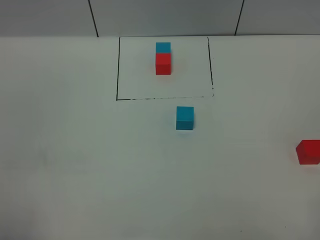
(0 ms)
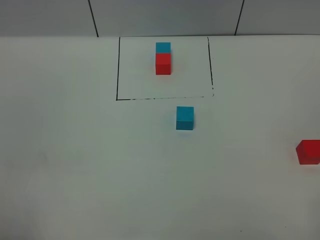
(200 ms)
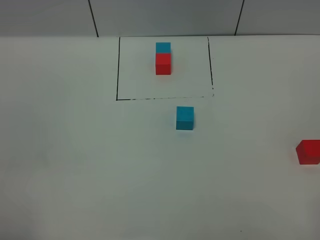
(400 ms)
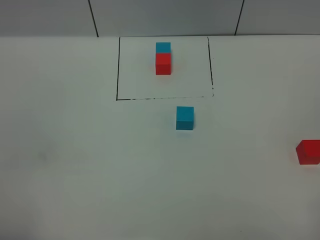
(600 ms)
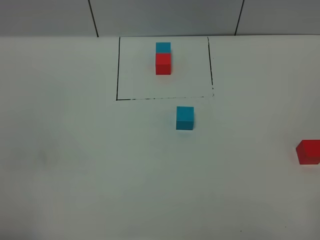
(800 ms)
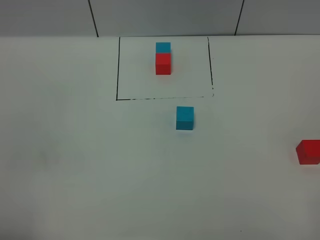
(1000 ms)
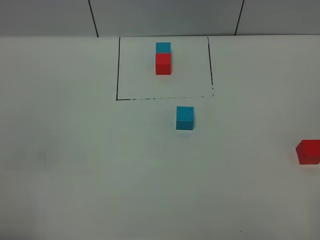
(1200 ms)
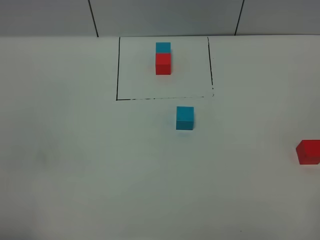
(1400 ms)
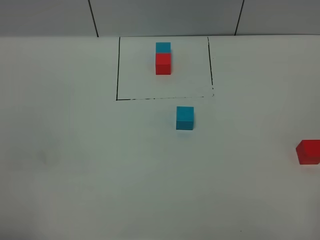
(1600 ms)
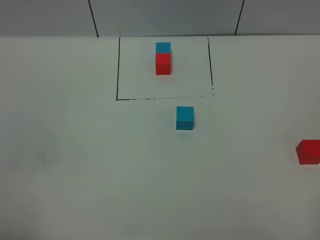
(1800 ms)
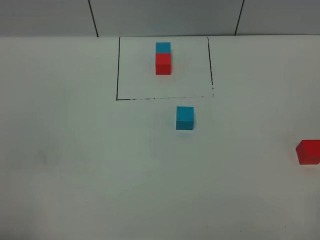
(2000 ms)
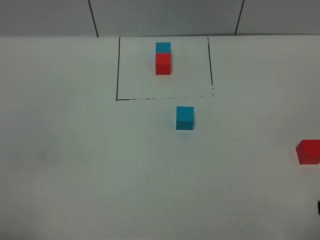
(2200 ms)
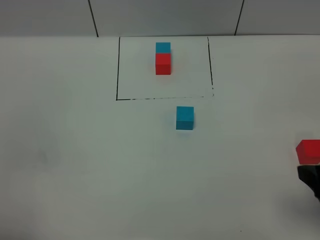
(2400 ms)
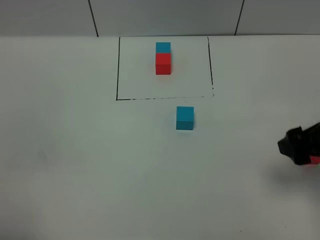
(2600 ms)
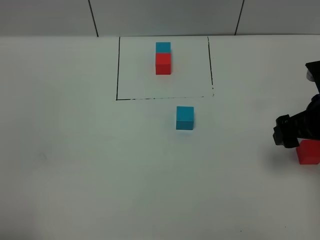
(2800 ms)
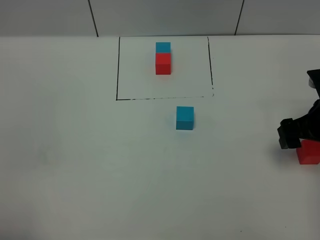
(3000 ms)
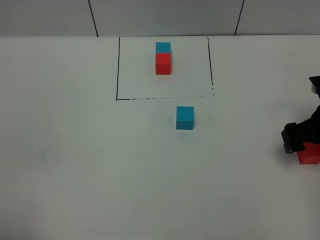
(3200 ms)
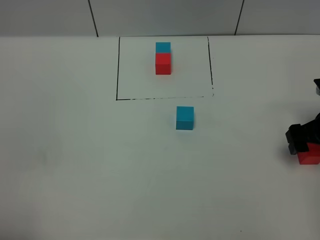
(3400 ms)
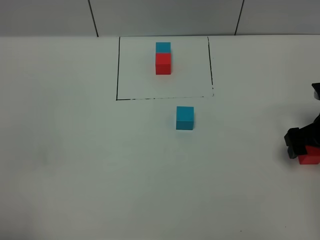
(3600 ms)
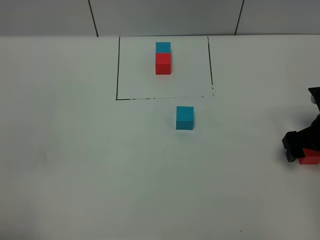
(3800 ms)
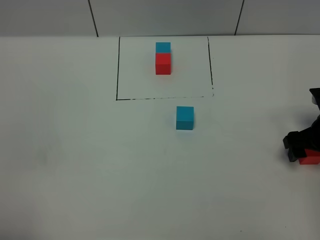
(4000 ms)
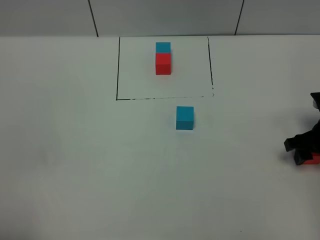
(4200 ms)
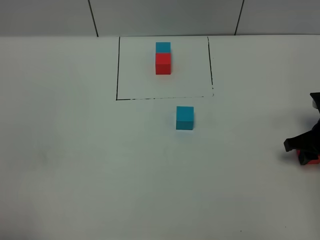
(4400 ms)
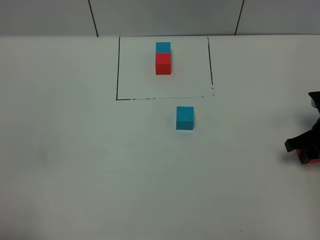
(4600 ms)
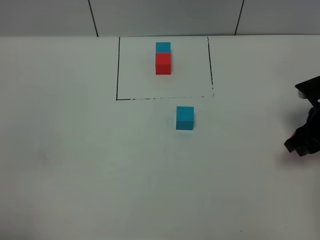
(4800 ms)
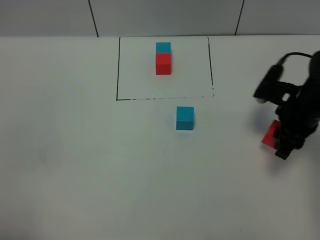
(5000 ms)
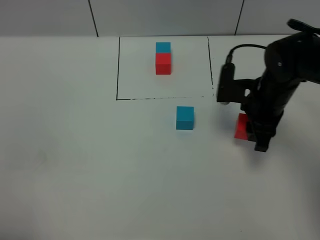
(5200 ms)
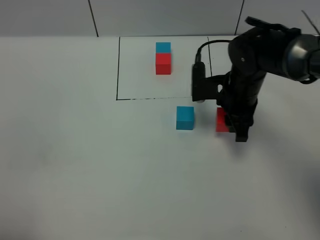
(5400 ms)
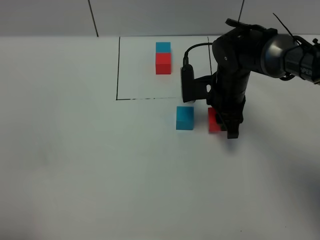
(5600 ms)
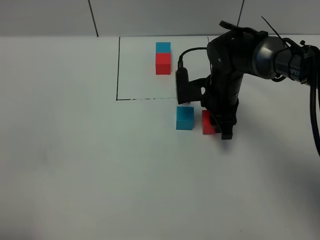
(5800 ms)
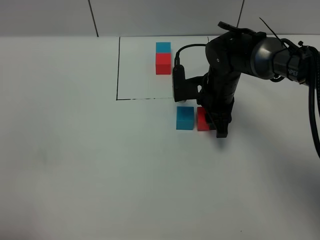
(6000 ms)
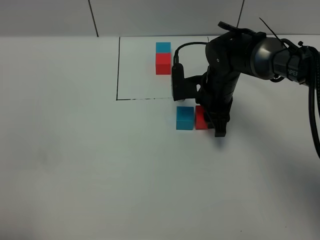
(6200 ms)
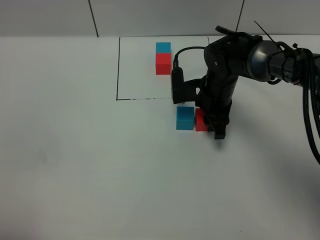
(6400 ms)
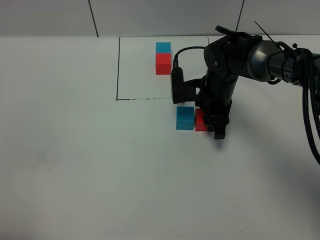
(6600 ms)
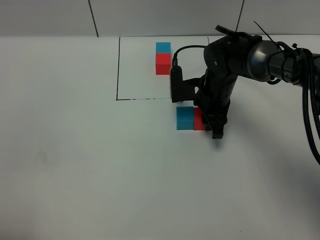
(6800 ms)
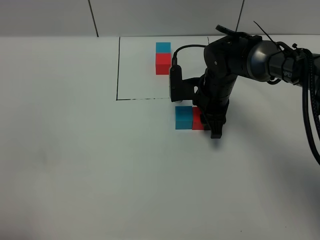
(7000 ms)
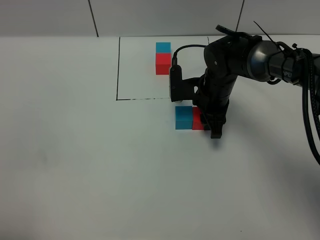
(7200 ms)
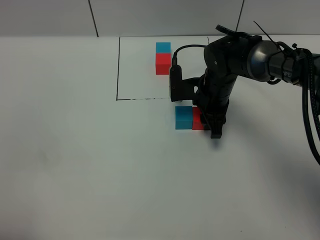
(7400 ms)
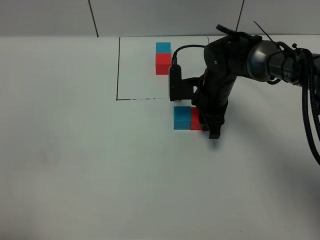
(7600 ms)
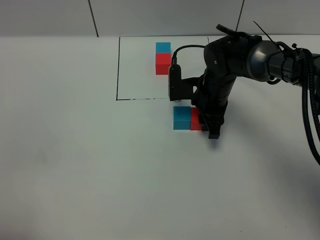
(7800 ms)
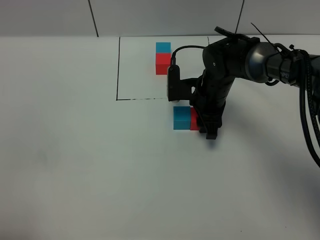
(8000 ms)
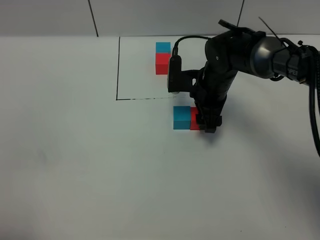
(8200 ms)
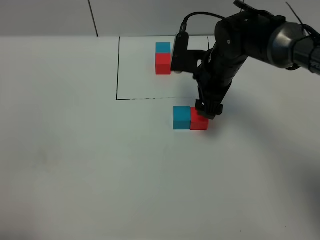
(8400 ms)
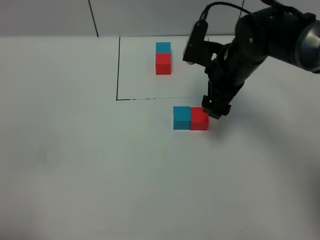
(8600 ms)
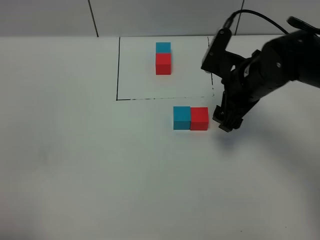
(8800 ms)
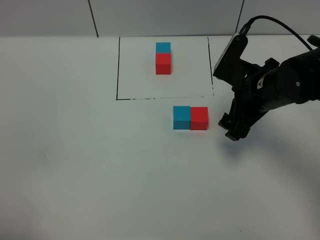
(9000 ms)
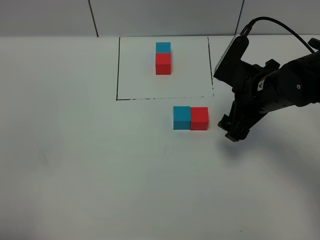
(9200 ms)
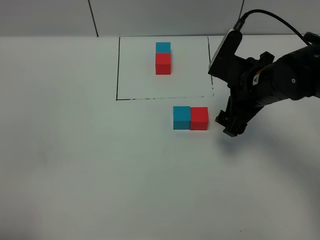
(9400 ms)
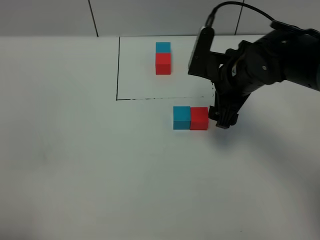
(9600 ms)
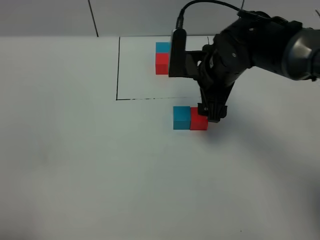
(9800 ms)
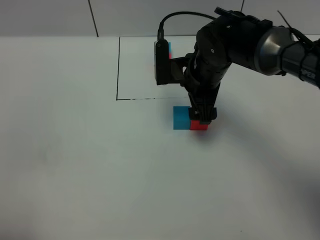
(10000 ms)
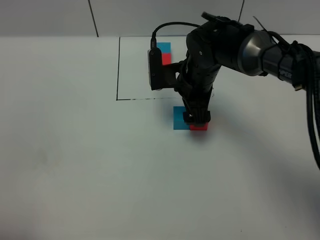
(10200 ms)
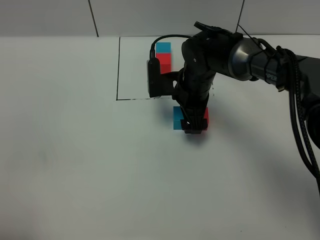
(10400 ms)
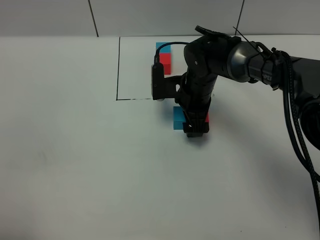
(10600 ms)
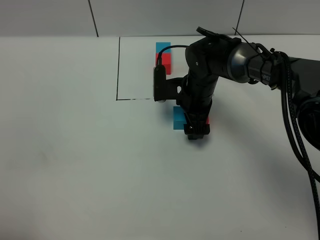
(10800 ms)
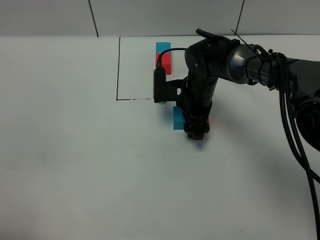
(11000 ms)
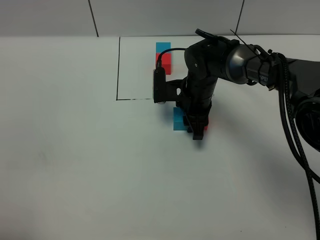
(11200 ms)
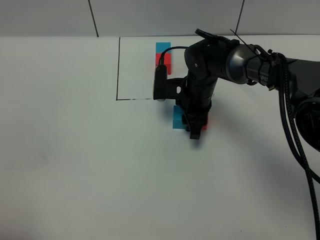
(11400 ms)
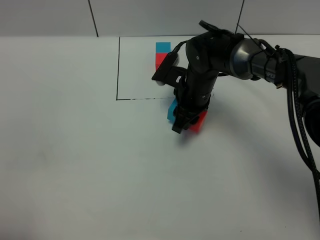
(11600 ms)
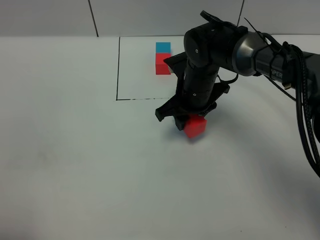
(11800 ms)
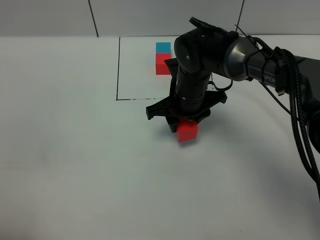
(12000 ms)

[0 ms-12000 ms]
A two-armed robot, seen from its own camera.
Task of the whole recording: According to the building block template in front, assemble the scattered blocks together.
Step, 0 ms to 8200 ms: Put the red cube on the right of the blue cube.
1600 ms to 3000 ms: The right gripper shifts about 30 cm forward.
3000 ms to 4400 ms: The right gripper is displaced downward by roughly 5 cm, and closes its fingers.
4400 ms to 6000 ms: The right gripper goes approximately 25 cm to the left and forward.
6000 ms to 7600 ms: Both grippers stay put.
7600 ms to 9000 ms: The right gripper moves backward, upward and to the right, roughly 15 cm, and opens its fingers.
9000 ms to 10400 ms: The right gripper is displaced forward, to the left and downward by some 15 cm.
10400 ms to 12000 ms: The right gripper closes.

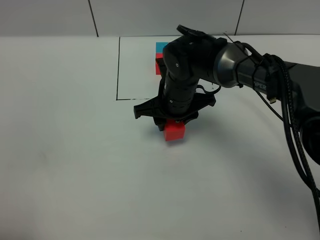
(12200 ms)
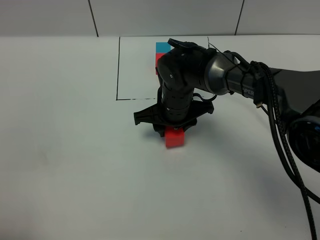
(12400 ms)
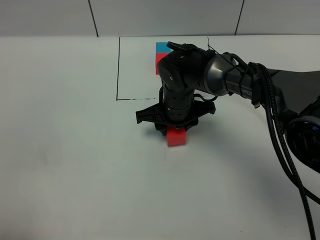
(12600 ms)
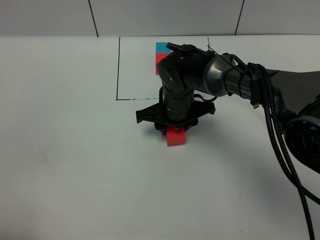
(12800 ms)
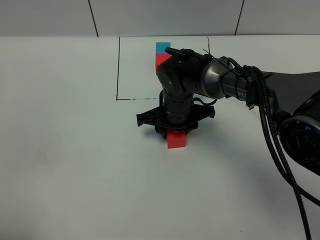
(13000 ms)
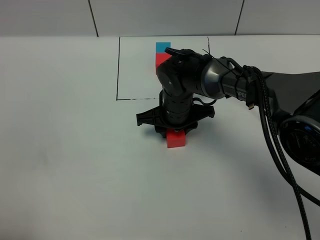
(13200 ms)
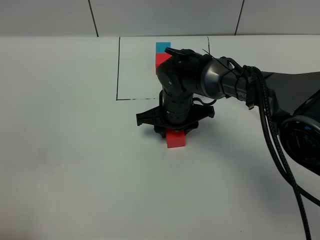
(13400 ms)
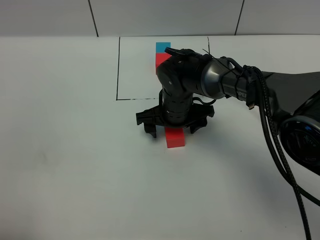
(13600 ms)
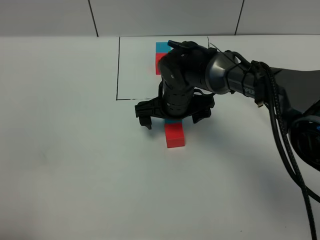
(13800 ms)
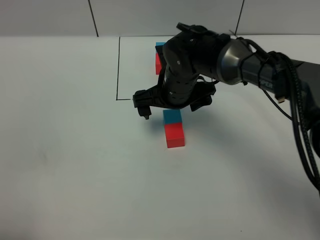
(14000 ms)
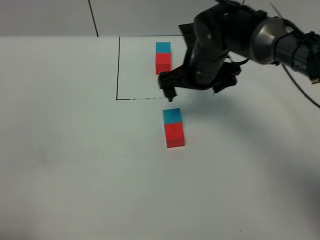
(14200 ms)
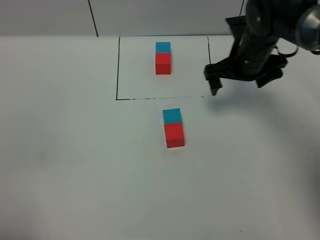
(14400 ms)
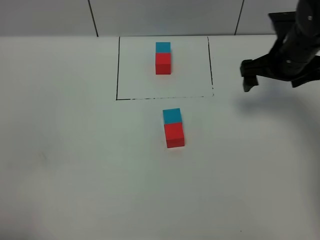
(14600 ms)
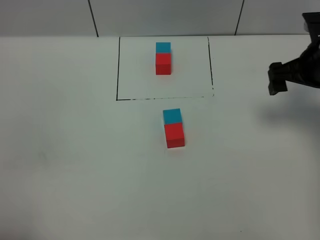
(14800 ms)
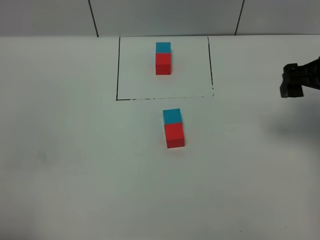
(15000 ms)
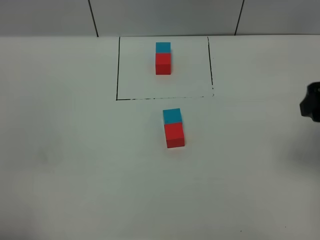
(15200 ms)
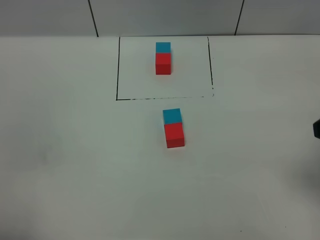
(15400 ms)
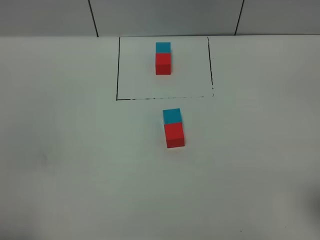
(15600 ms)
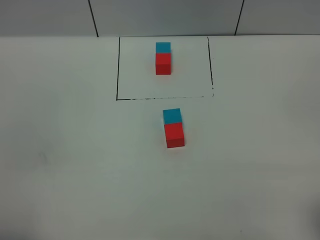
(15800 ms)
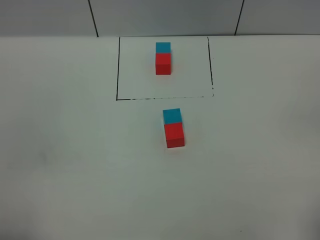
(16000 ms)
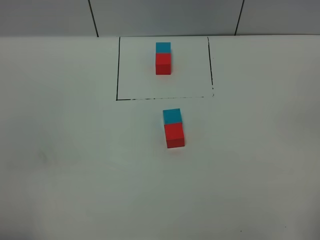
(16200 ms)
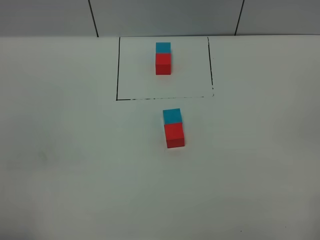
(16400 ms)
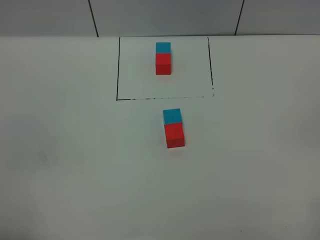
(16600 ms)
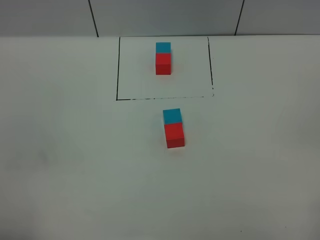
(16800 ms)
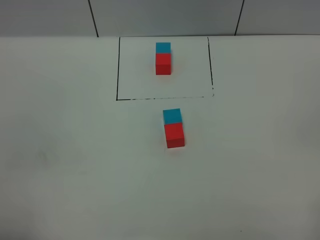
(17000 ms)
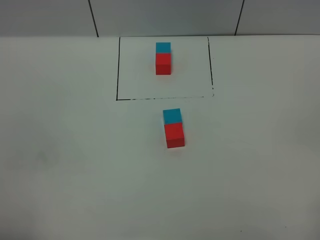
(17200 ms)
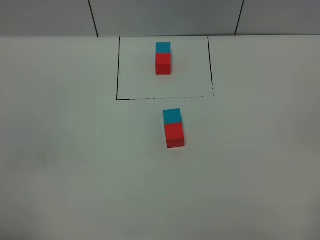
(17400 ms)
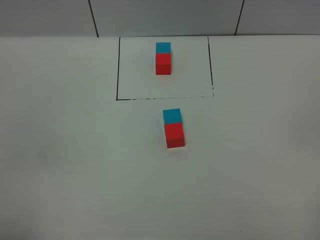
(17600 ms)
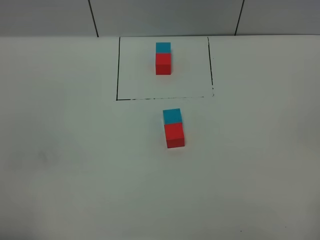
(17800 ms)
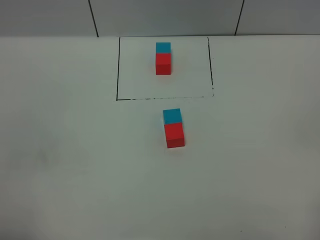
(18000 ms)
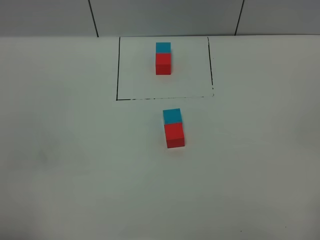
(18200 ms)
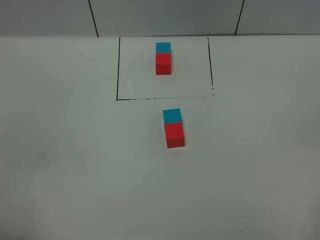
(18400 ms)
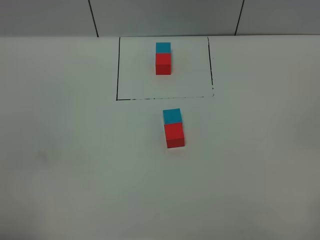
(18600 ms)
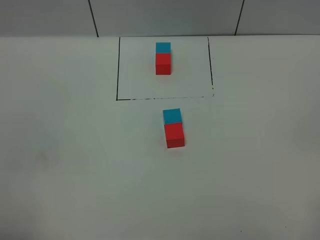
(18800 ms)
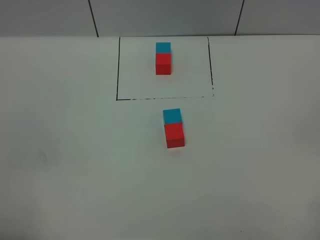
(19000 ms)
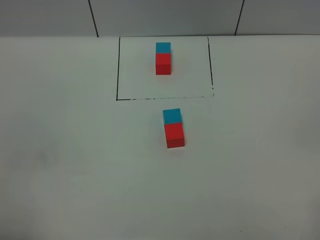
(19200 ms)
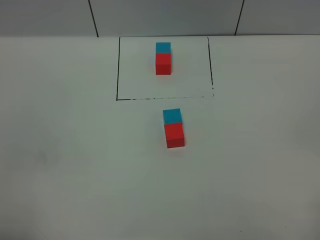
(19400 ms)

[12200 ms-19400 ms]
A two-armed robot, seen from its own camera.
Task of the whole recording: According to the building block template in front, assemble the scattered blocks together.
12200 ms to 13600 ms: The right gripper opens.
13600 ms to 15000 ms: The right gripper moves to the right, upward and backward, some 30 cm.
15000 ms to 16600 ms: The right gripper goes roughly 30 cm backward.
16600 ms to 19400 ms: Both grippers stay put.
